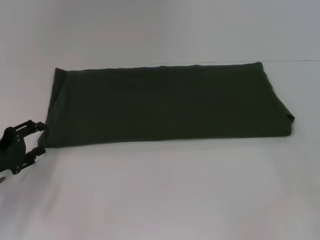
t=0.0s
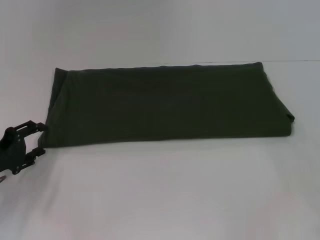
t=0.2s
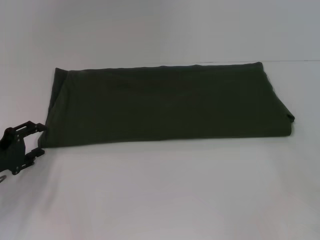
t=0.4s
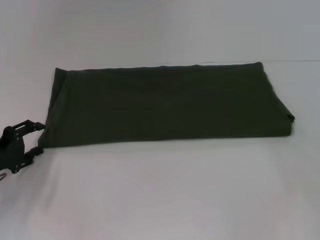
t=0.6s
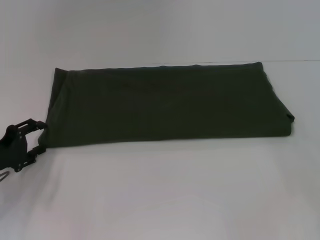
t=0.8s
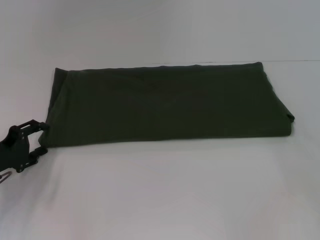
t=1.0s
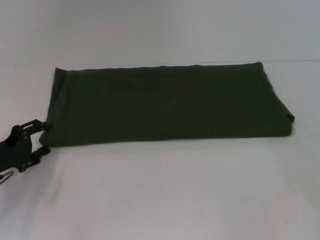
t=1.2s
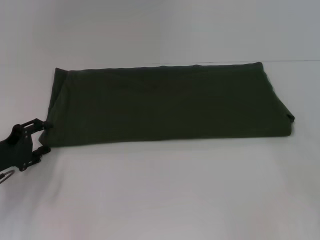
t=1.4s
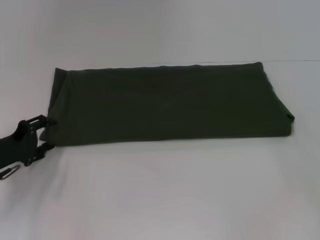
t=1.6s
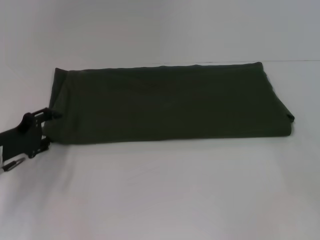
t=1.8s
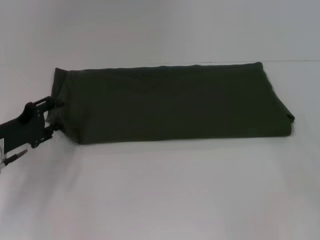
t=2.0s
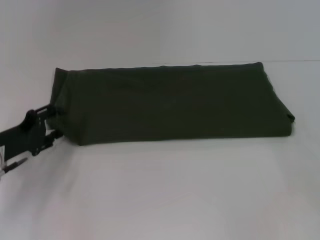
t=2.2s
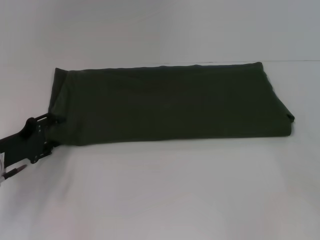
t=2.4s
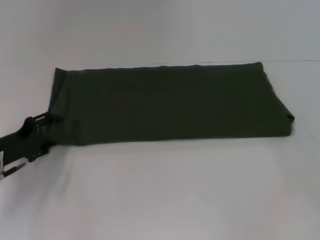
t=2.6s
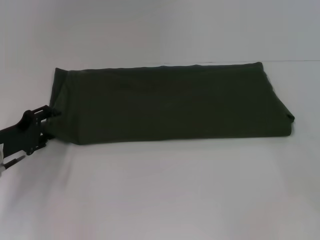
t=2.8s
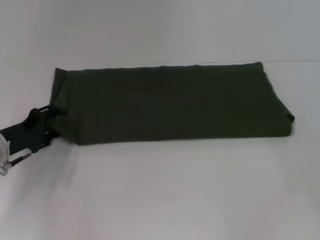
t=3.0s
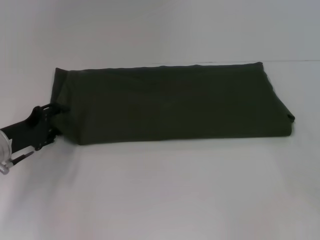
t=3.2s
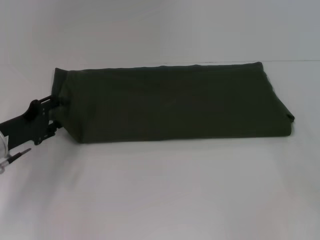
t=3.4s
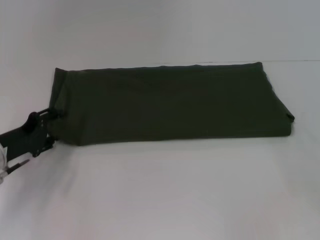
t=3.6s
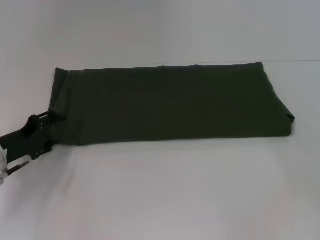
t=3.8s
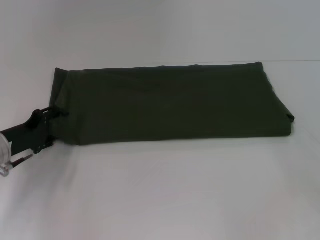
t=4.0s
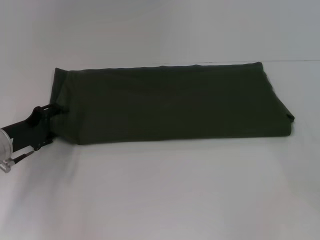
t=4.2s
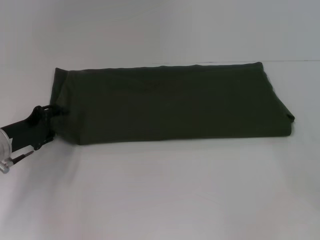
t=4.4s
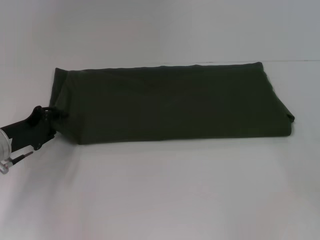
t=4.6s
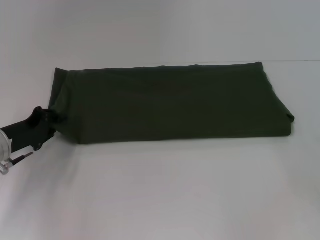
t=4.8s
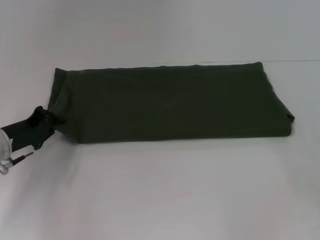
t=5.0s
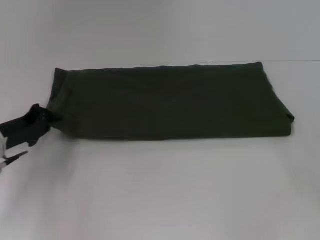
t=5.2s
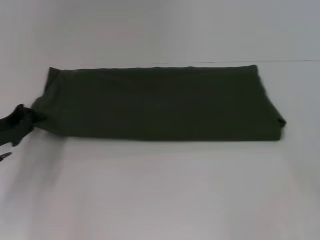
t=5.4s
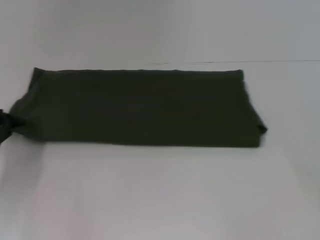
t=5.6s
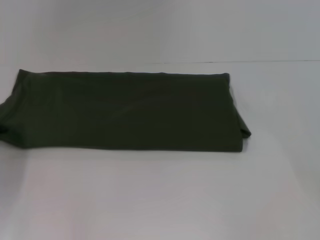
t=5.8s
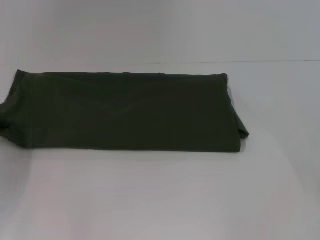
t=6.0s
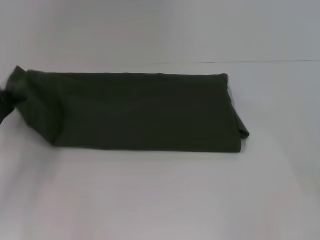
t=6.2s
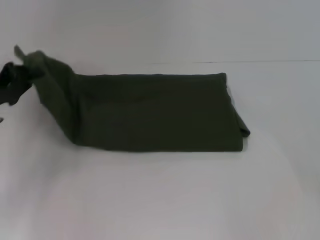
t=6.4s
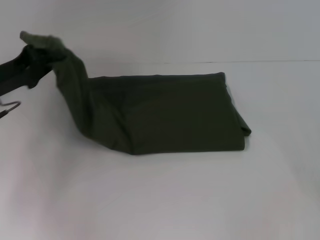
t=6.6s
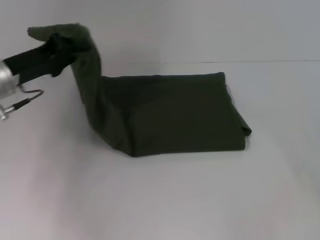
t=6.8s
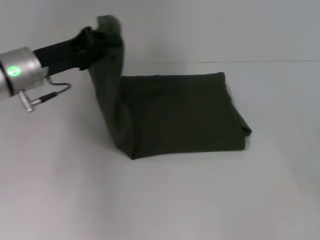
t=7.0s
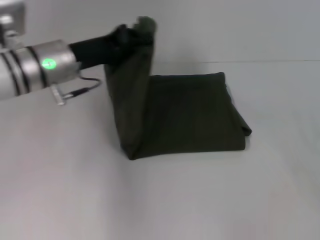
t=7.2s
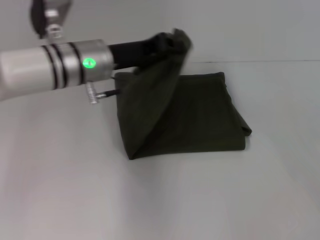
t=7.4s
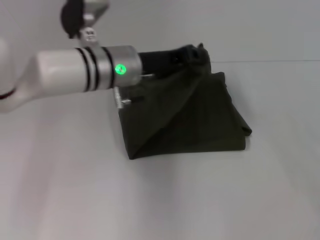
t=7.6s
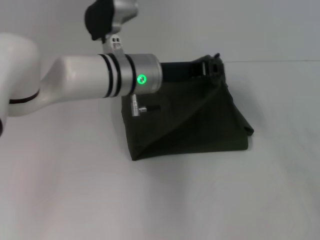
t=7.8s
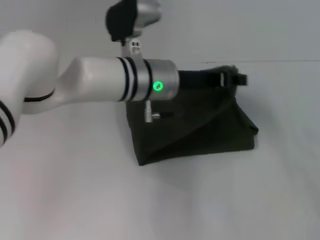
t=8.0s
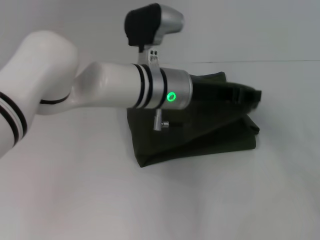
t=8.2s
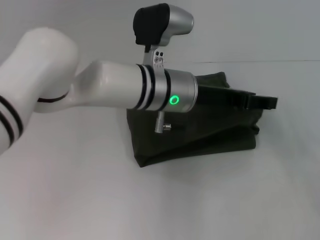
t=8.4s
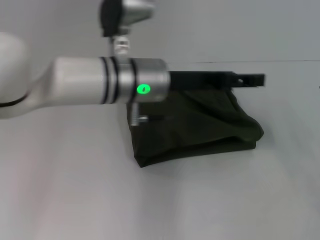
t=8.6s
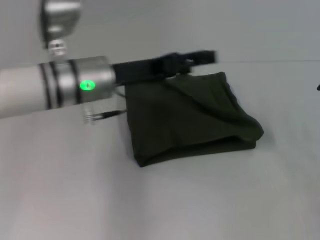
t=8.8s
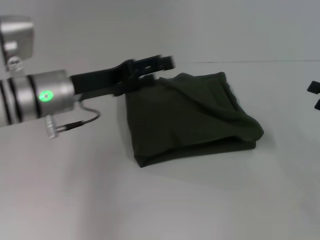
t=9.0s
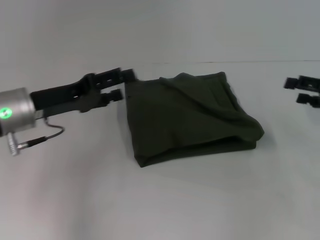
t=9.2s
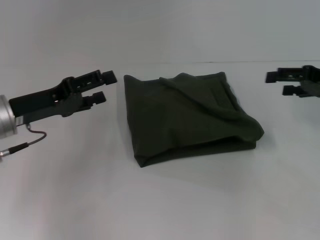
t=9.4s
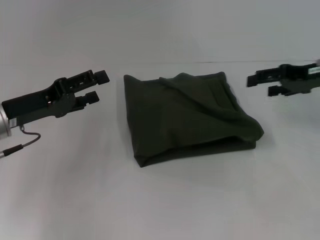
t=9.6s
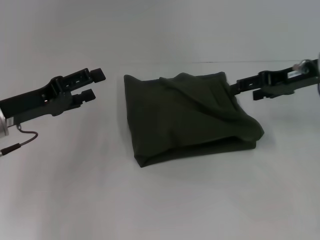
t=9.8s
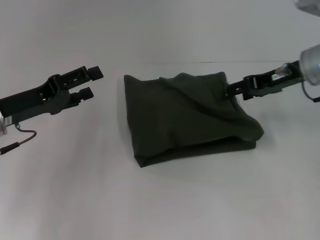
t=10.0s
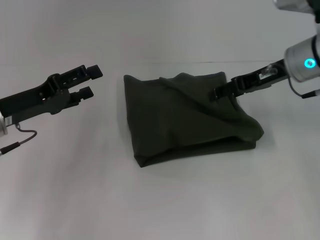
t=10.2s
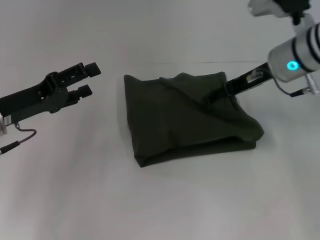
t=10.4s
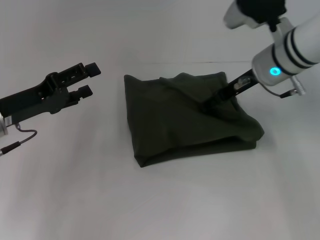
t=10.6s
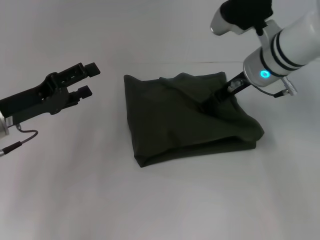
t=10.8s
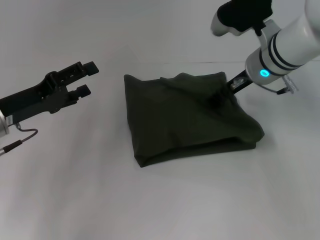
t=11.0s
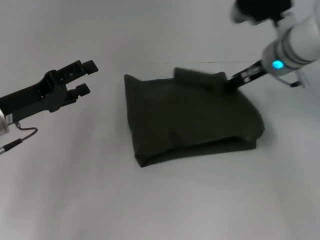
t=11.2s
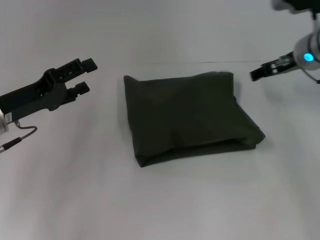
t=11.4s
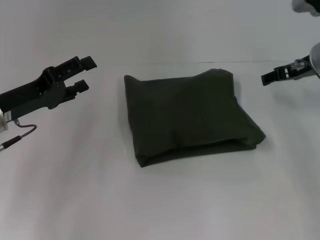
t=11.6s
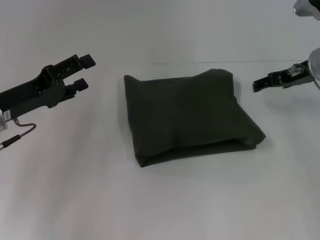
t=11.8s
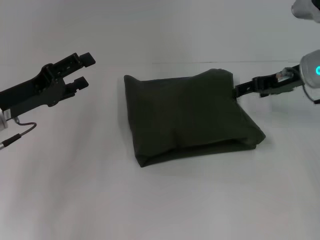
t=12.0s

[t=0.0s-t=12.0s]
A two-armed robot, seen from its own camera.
Step, t=0.0s to t=11.8s: Fold the clothes with your left hand.
t=0.0s to t=3.0s: The grippers make only small movements.
t=4.4s to t=6.0s: The left gripper shifts some 5 cm to the left, and closes.
t=6.0s to t=7.6s: The left gripper shifts some 25 cm to the right.
t=7.6s to t=9.0s: The left gripper heads to the left, covering some 10 cm, and opens up.
t=9.0s to t=10.4s: The right gripper is displaced to the left and forward by about 20 cm; the left gripper is displaced to the left by some 10 cm.
t=10.4s to t=12.0s: The right gripper shifts roughly 5 cm to the right.

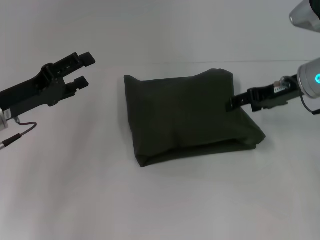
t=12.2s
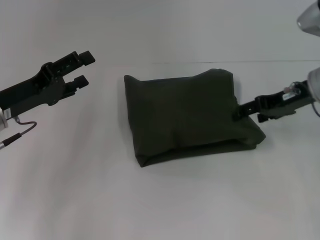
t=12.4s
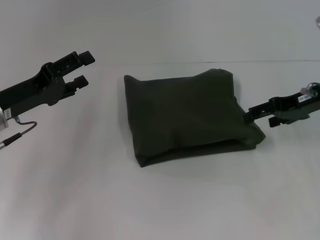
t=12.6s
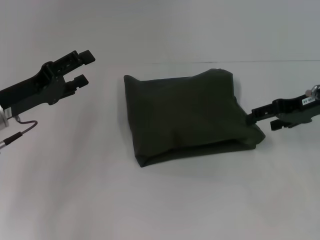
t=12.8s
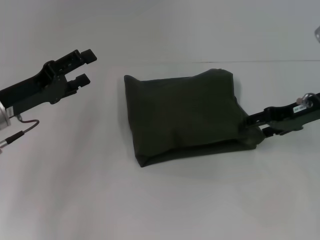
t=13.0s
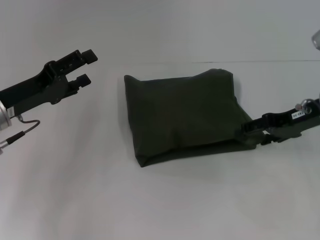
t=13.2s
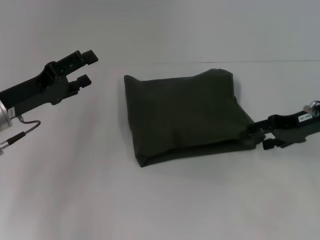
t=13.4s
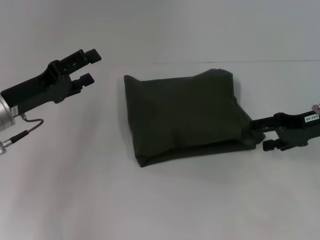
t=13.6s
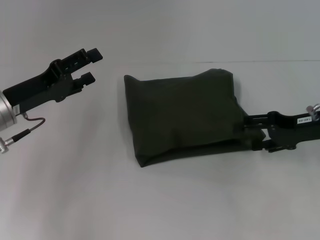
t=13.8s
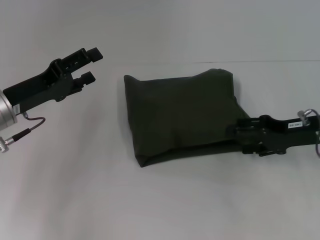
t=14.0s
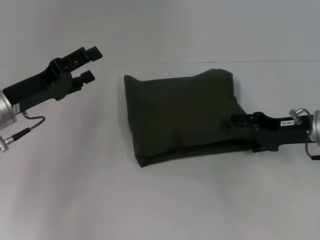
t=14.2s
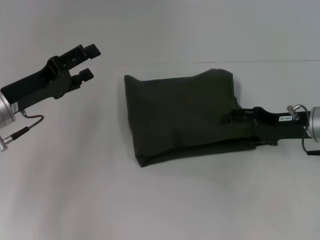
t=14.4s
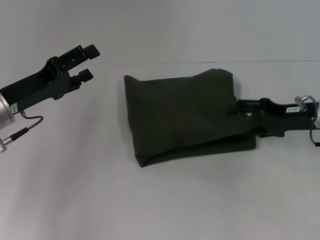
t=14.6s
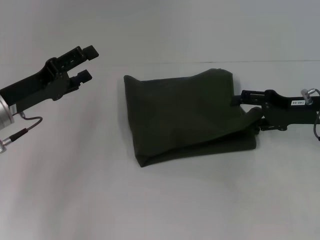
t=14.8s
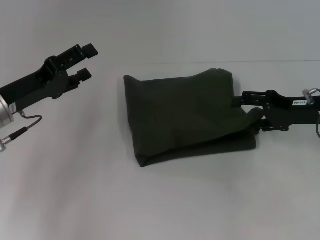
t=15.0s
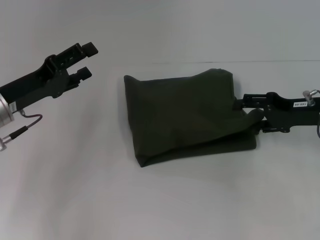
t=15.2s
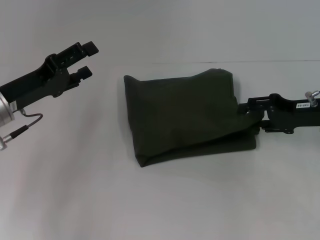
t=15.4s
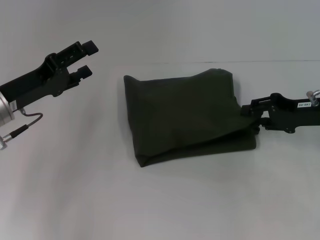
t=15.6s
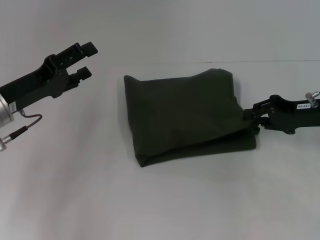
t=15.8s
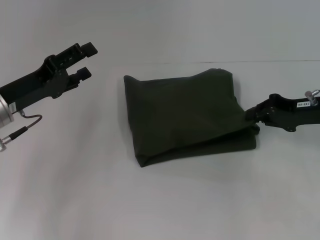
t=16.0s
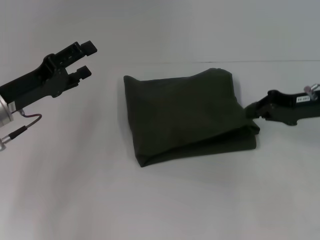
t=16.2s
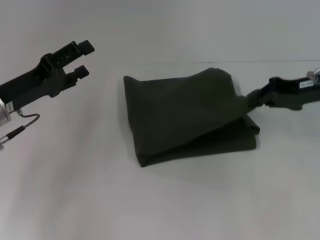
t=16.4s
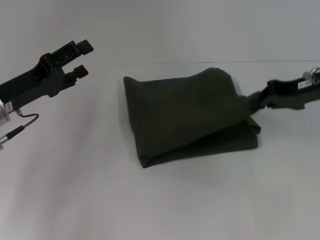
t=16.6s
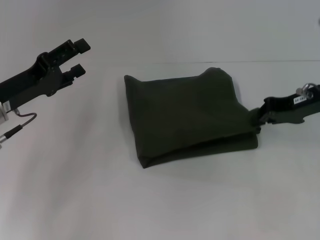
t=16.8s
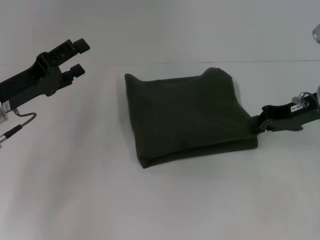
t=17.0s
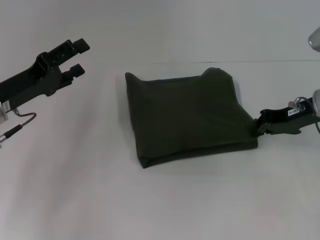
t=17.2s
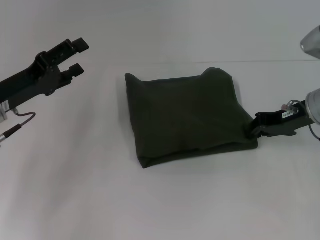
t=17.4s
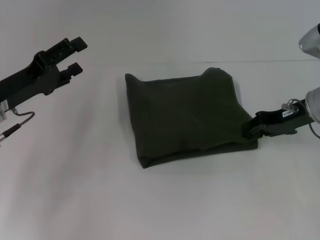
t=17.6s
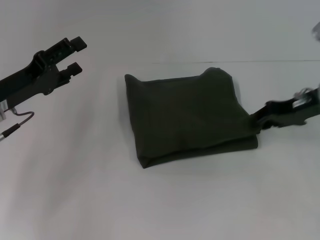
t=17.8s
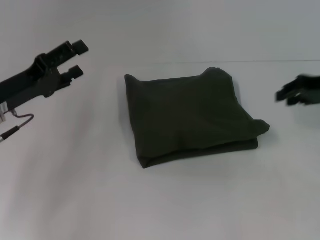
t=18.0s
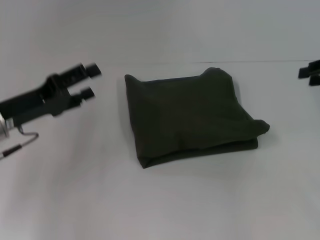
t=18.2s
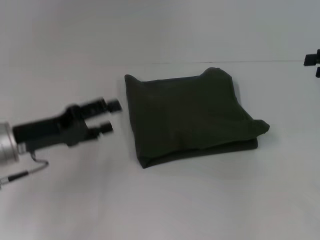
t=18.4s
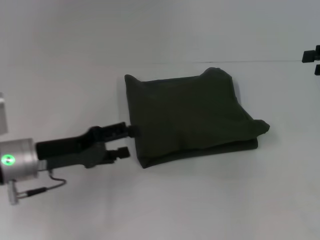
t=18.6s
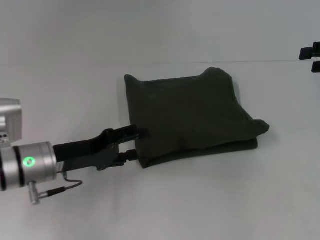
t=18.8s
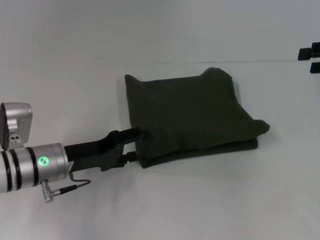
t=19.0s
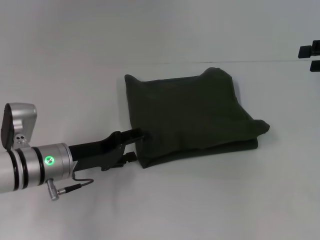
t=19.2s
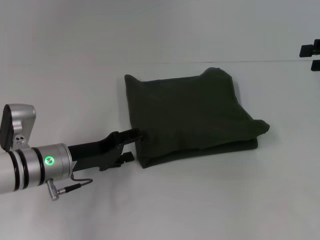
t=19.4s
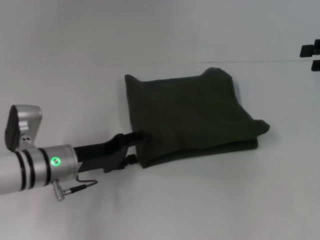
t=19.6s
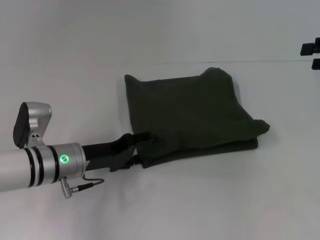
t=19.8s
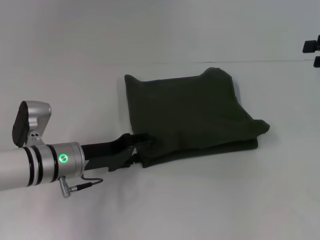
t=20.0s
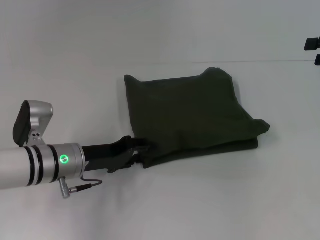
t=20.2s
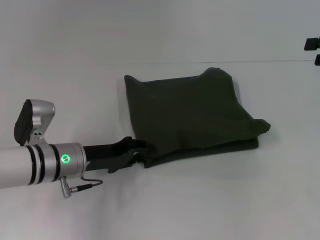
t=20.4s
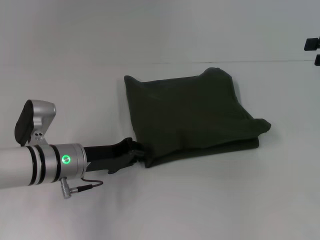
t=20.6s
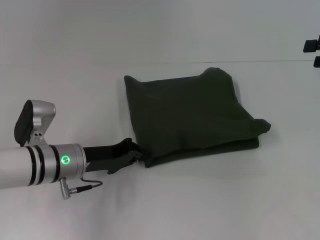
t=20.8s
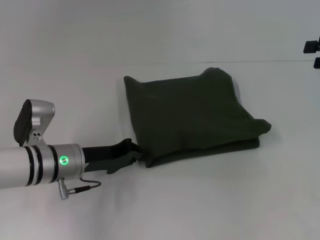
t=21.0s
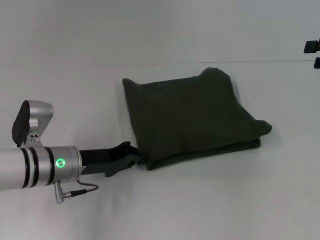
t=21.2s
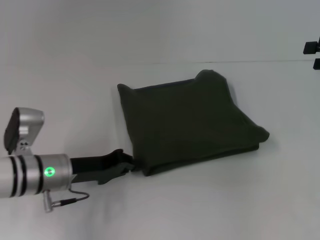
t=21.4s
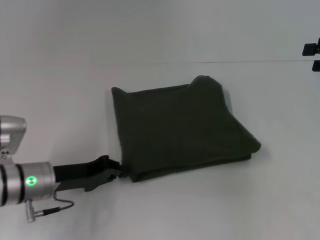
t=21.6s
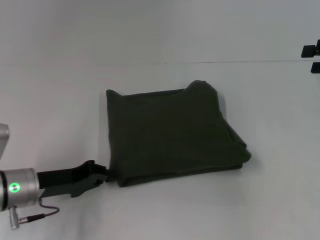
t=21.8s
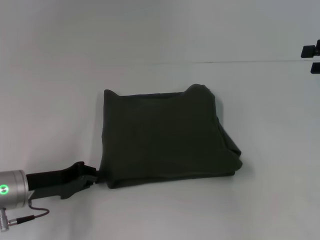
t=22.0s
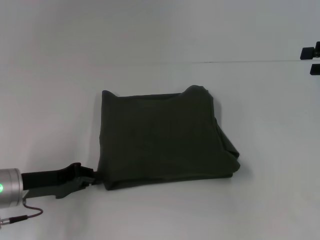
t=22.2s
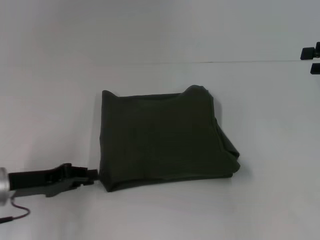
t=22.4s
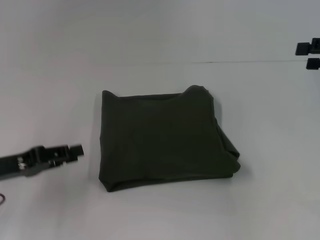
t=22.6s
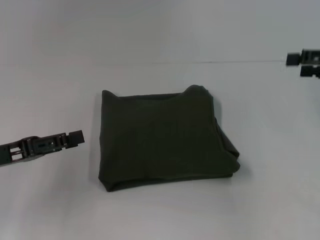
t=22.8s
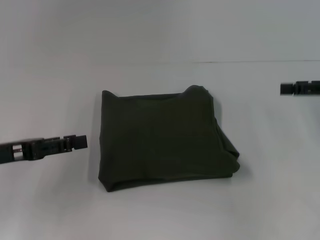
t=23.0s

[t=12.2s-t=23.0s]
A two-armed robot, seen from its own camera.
t=12.2s to t=13.8s: The right gripper travels backward by about 5 cm.
t=13.8s to t=15.2s: The grippers stay close to where they were, moving slightly.
t=15.2s to t=16.8s: The right gripper shifts by about 5 cm, and closes up.
t=16.8s to t=18.4s: The right gripper travels to the right by some 10 cm, and opens its fingers.
t=18.4s to t=20.0s: The left gripper is displaced to the right and downward by roughly 10 cm.
t=20.0s to t=21.4s: The left gripper closes up.
t=21.4s to t=23.0s: The right gripper ends up about 5 cm from where it was. The left gripper moves to the left and upward, about 15 cm, and opens its fingers.
